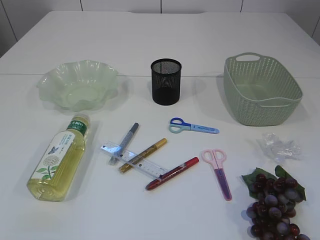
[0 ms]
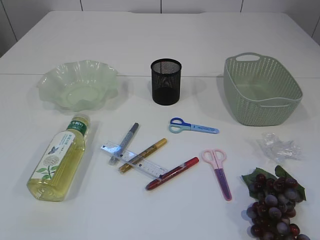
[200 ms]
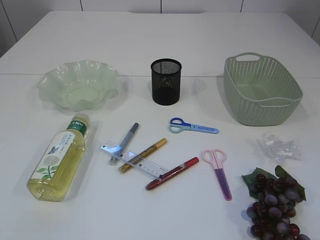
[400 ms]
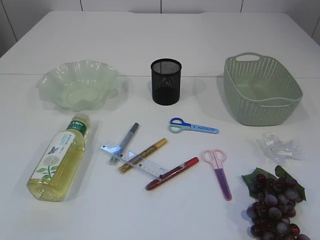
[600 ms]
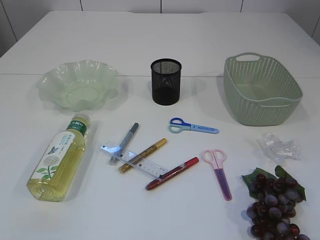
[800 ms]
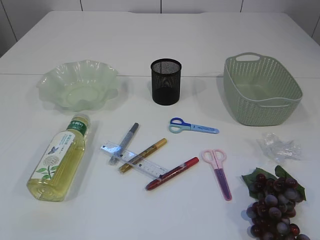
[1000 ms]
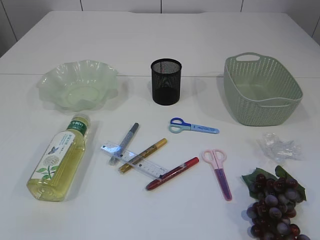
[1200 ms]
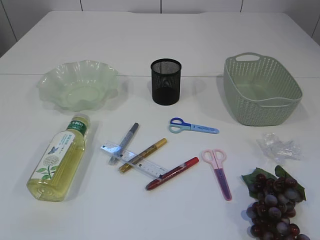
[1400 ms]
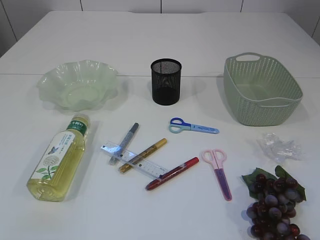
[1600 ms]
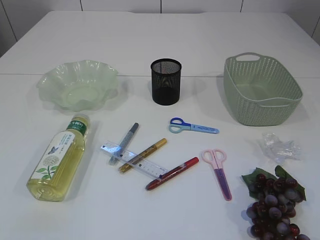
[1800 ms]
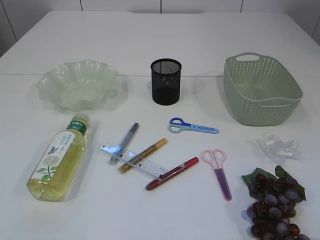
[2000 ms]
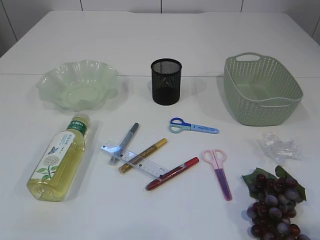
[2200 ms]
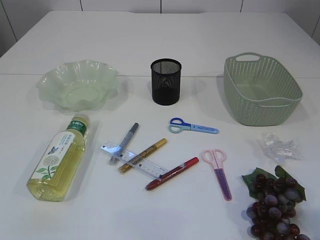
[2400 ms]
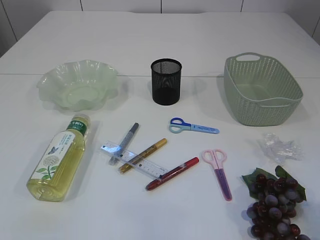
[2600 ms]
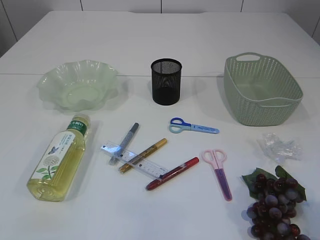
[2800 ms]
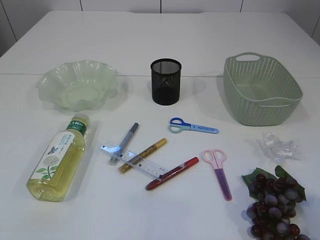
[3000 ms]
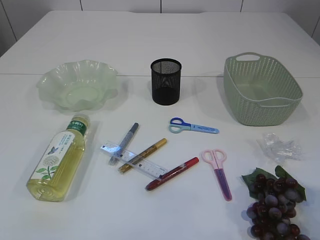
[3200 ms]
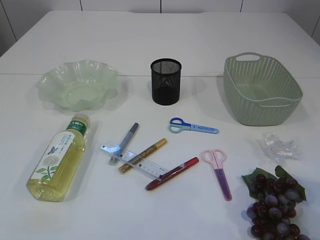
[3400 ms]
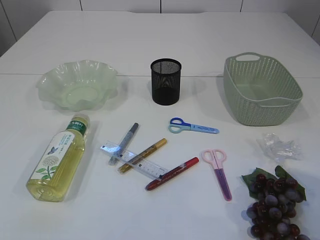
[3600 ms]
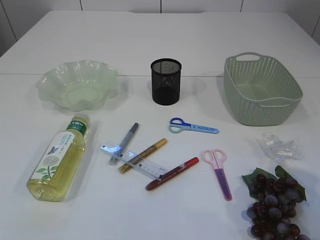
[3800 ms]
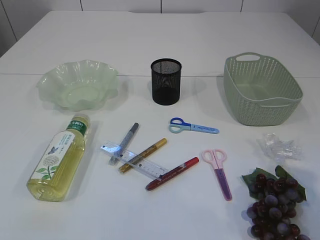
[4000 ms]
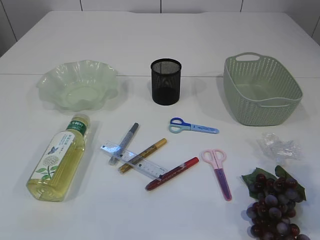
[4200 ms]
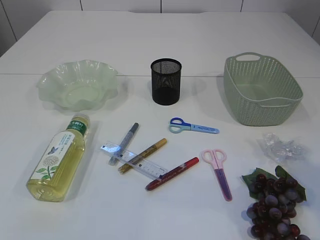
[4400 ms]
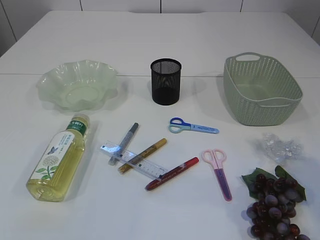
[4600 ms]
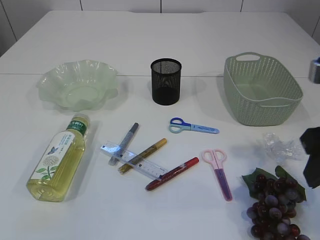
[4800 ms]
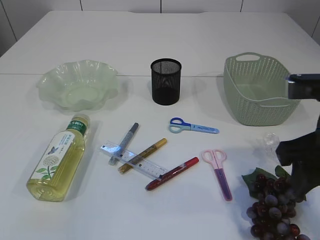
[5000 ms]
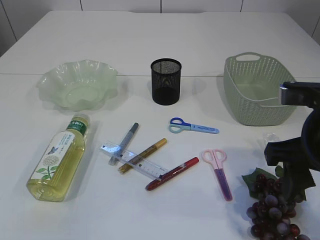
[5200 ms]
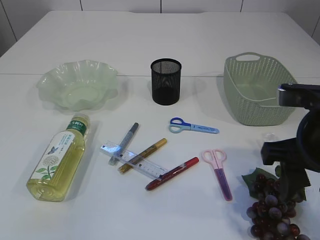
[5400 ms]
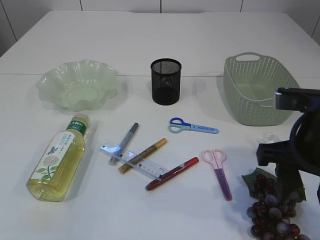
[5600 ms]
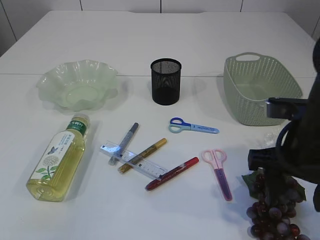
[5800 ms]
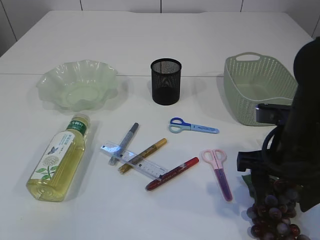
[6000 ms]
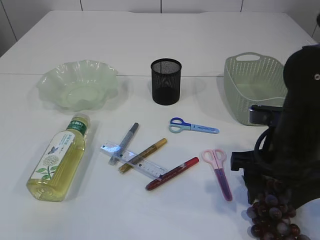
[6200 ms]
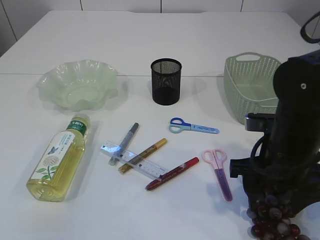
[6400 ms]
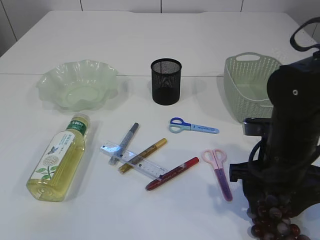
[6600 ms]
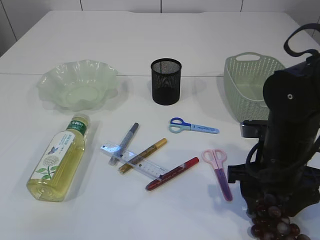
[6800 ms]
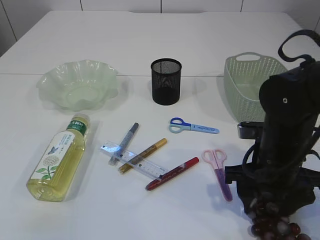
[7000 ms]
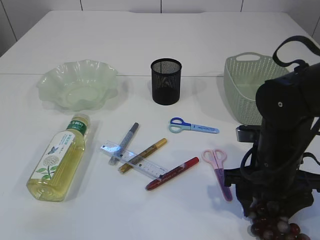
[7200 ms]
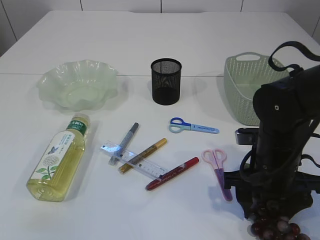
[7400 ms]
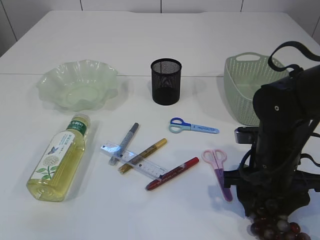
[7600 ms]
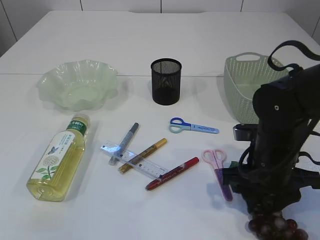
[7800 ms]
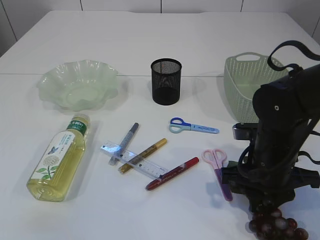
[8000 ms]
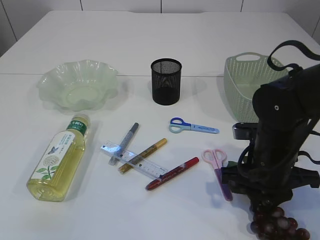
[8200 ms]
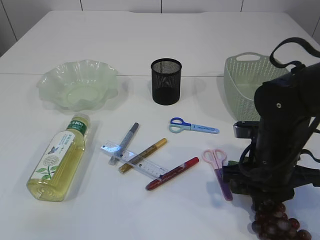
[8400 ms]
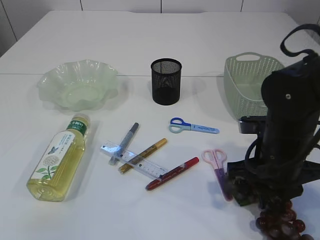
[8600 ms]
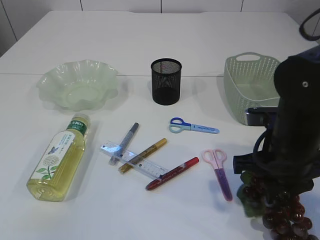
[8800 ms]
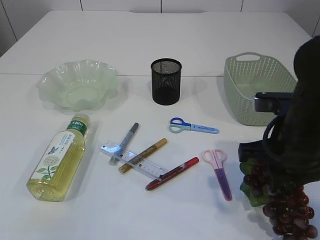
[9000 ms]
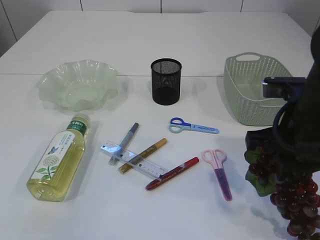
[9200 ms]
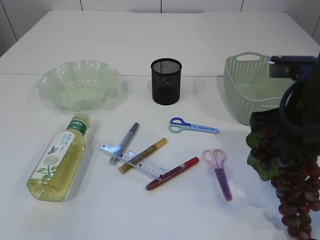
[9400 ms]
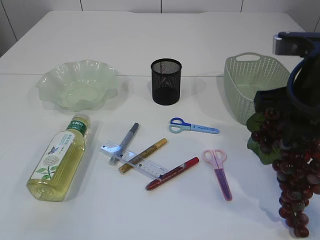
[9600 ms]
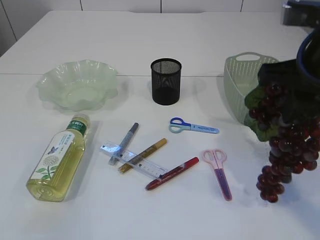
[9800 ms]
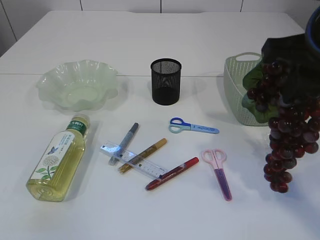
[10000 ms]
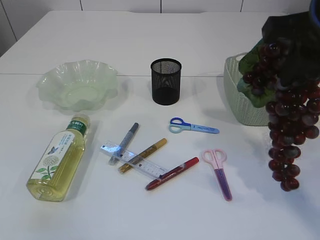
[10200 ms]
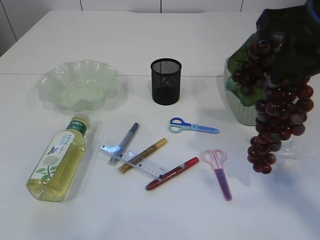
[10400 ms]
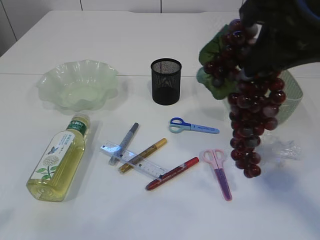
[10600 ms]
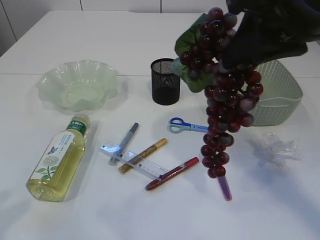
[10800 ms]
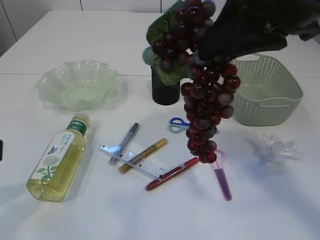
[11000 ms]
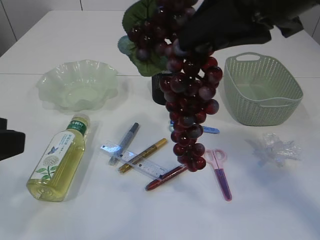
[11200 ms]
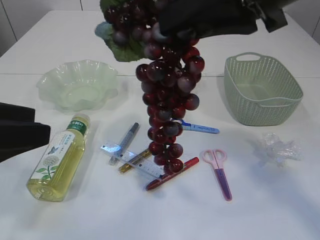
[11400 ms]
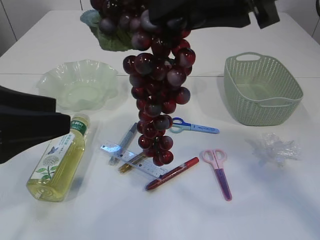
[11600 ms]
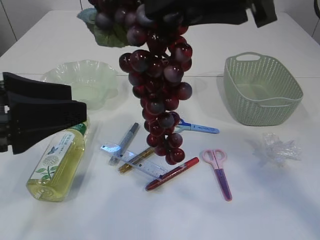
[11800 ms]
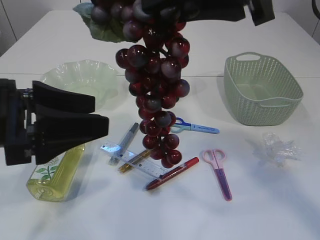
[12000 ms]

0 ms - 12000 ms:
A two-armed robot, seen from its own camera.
Step, 0 ms - 9600 ms: Pick up the grapes.
1600 ms - 3000 ms: The right gripper moves forward, roughly 10 cm.
3000 ms - 4400 ms: The right gripper heads forward, covering some 10 cm.
4400 ms - 6000 ms: The right gripper travels downward, to the left and forward by roughly 15 cm.
6000 ms - 7600 ms: The right gripper is displaced downward by some 5 cm.
7600 ms - 9000 ms: The right gripper goes about 5 cm upward, and closes its fingers.
9000 ms - 10400 ms: The right gripper heads upward, covering about 15 cm.
10400 ms - 12000 ms: The right gripper heads to the left, covering roughly 5 cm, while the left gripper heads forward and to the right, covering about 20 cm.

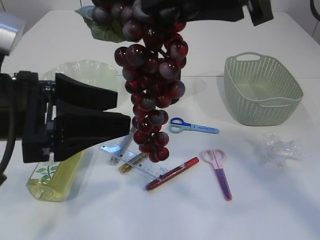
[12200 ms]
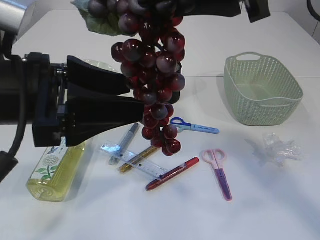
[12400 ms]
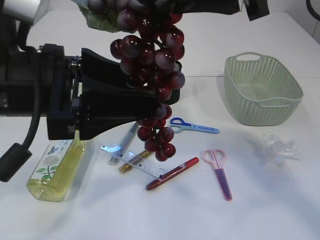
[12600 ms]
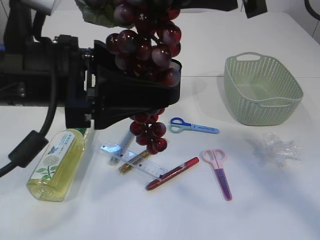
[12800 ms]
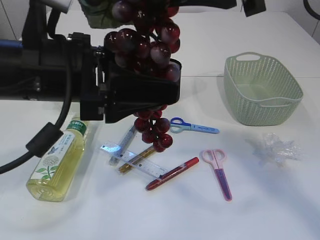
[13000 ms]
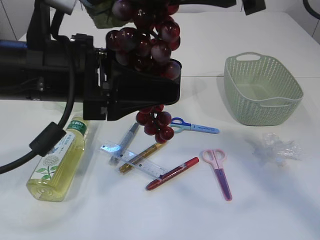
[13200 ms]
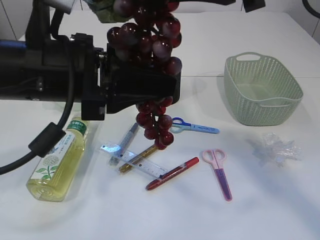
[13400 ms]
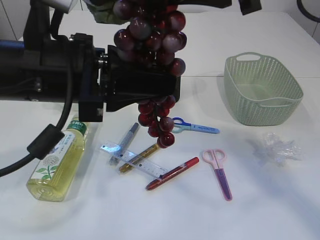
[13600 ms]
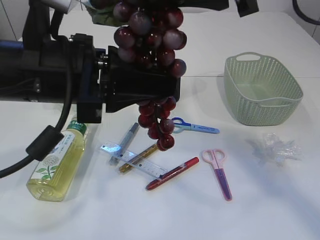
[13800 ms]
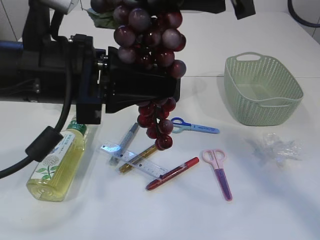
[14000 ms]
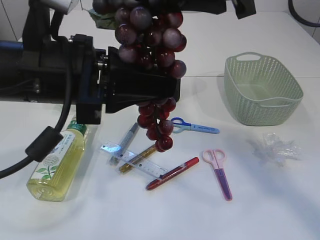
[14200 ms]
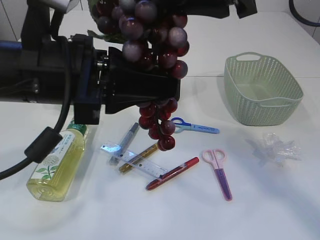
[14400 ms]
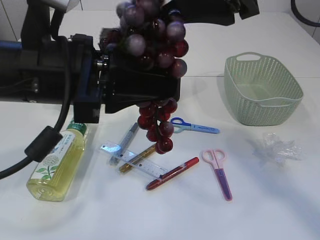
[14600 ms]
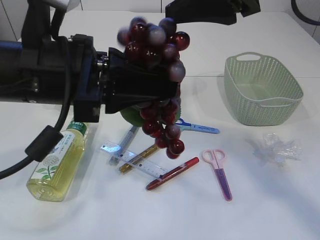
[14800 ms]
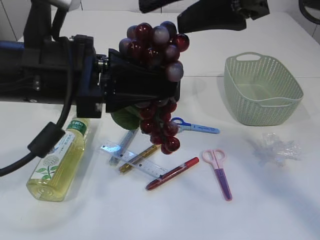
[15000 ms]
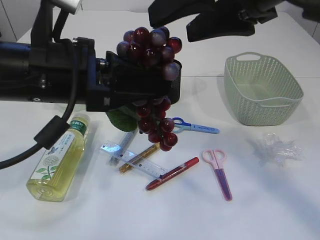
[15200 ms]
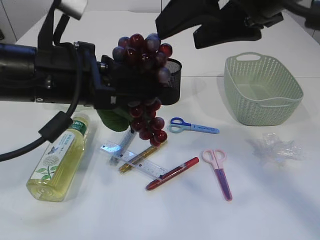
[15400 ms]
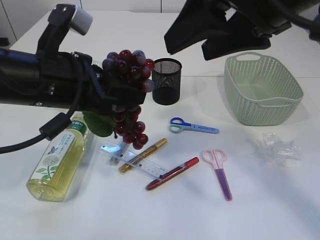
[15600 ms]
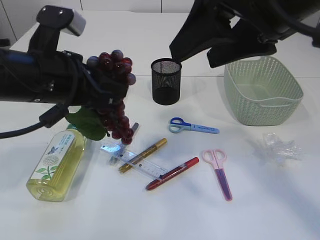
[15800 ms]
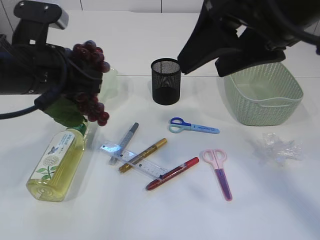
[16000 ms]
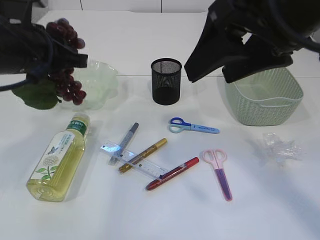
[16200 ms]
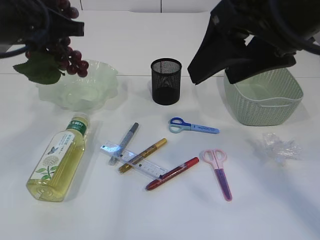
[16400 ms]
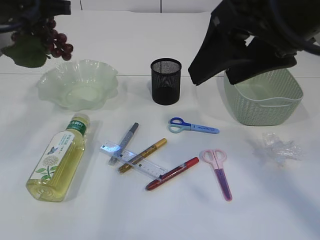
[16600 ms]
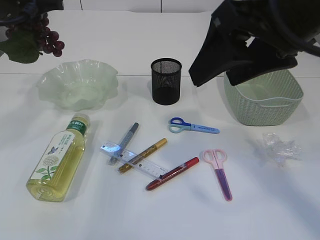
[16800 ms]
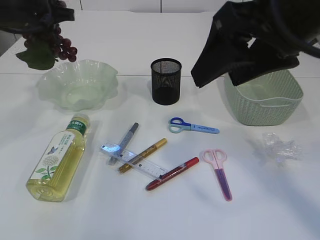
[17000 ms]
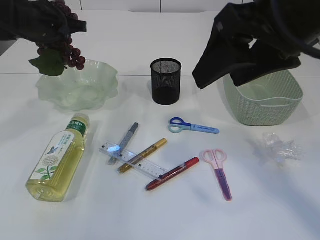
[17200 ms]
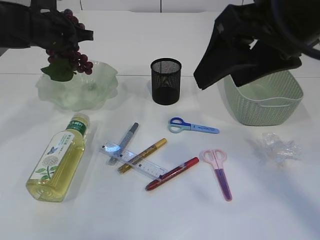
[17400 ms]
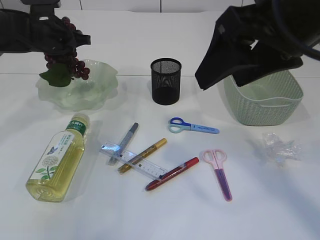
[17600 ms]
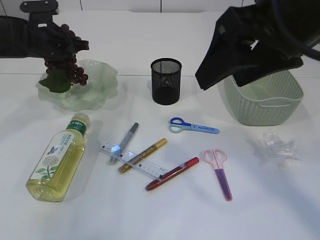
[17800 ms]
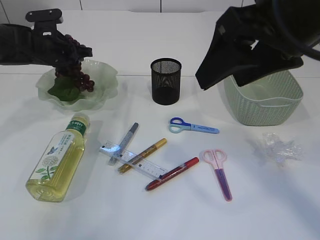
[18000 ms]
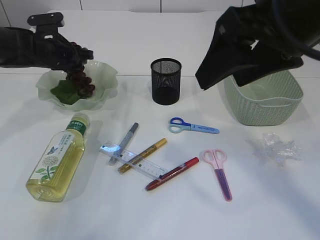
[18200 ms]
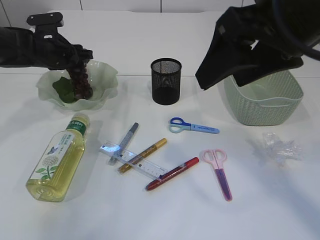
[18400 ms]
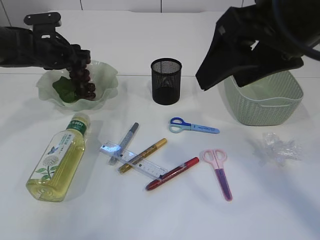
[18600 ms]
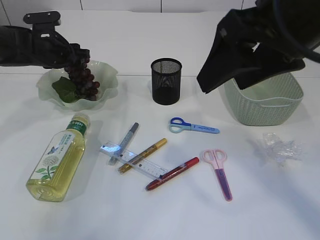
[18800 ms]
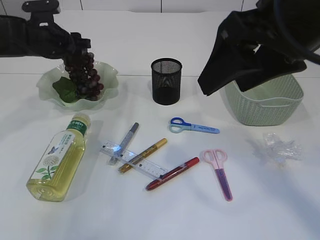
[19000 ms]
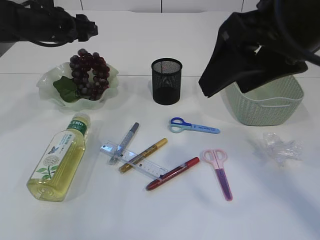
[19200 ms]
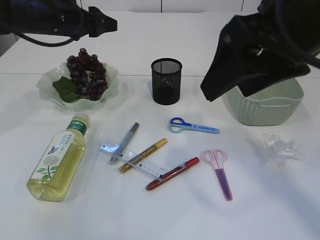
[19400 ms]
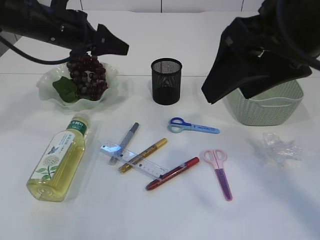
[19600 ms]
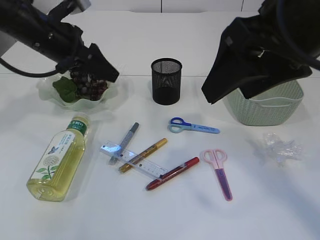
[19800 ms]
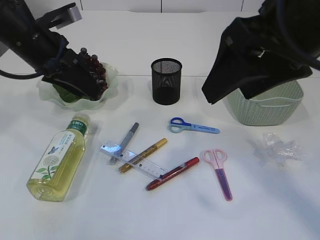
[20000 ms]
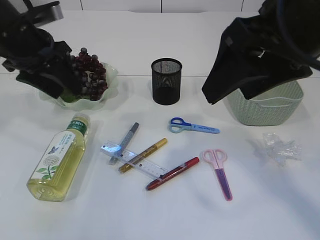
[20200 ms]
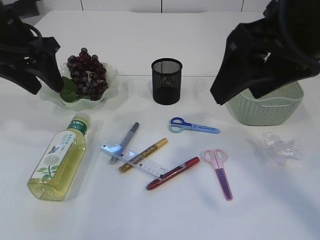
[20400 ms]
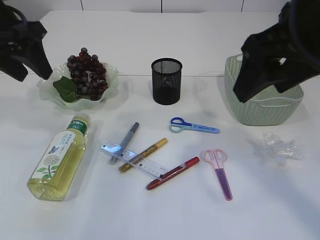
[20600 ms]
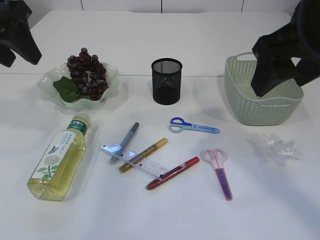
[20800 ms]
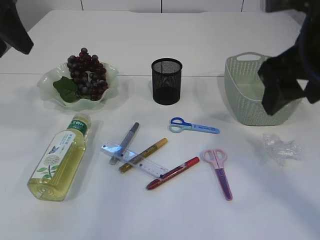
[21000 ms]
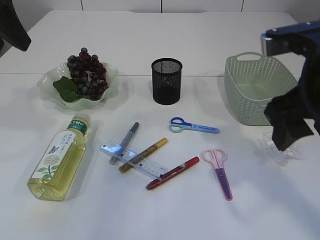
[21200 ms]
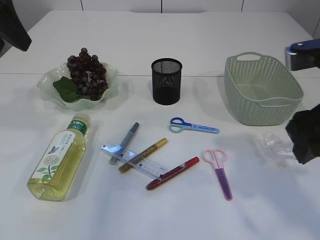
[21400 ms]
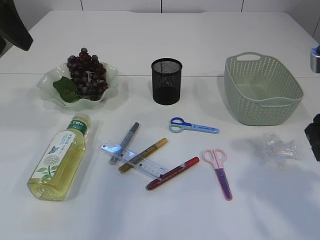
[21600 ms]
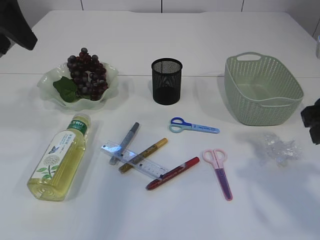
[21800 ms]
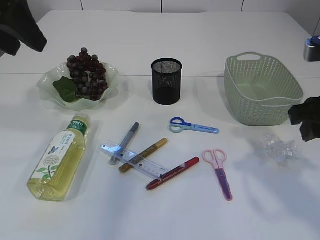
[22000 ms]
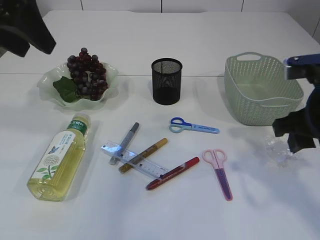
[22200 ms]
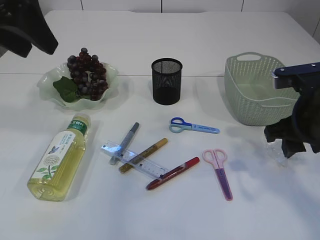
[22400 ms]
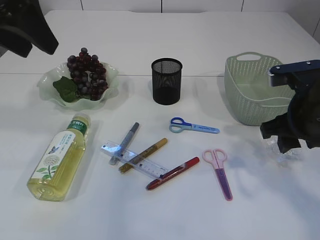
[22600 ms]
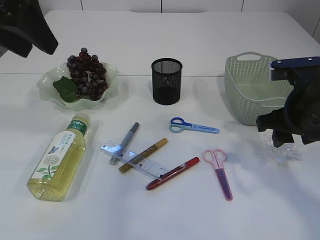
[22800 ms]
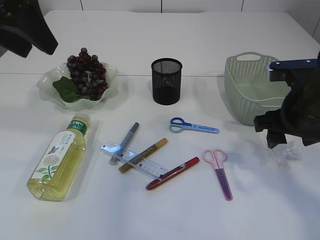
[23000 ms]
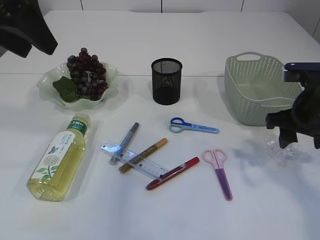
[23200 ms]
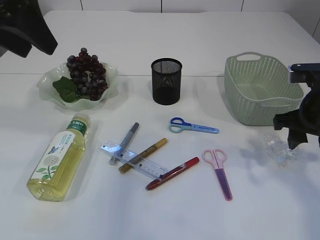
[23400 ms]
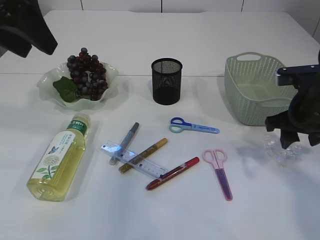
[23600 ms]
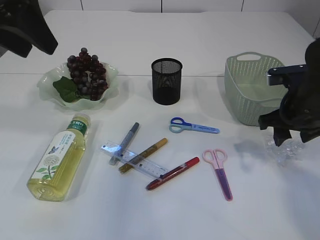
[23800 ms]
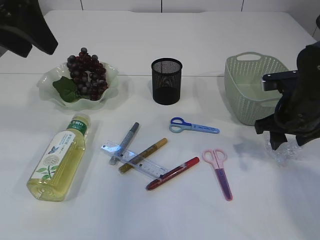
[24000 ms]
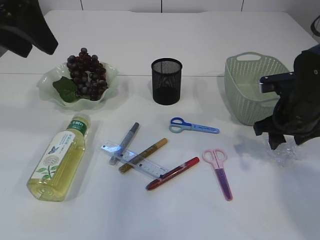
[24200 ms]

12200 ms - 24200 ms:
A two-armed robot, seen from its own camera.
Step, 12200 ms - 15600 ms: Hand over the grapes.
Step, 15800 ms - 20600 ms: Place the grapes in the plate.
12200 ms - 13800 ms: The left gripper travels to the right by approximately 5 cm, and closes.
13800 ms - 15200 ms: The right gripper opens.
15200 ms - 16600 ms: The left gripper goes some 15 cm forward and to the left.
16600 ms - 18200 ms: The left gripper heads forward and downward, covering approximately 20 cm, and opens up.
18200 ms - 19800 ms: The left gripper travels backward and upward by about 10 cm.
19800 ms - 21200 ms: The right gripper goes approximately 5 cm downward, while the left gripper moves upward, backward and to the left, about 15 cm.
21200 ms - 22600 ms: The right gripper goes about 10 cm downward.
22600 ms - 24200 ms: The right gripper shifts roughly 10 cm forward and downward.
